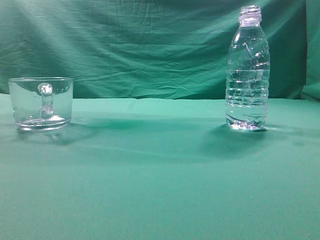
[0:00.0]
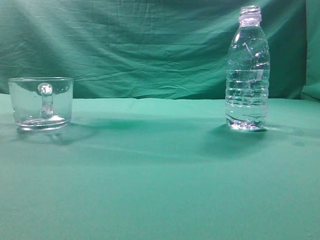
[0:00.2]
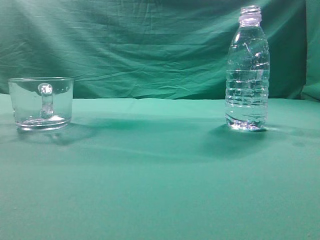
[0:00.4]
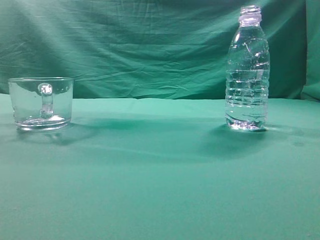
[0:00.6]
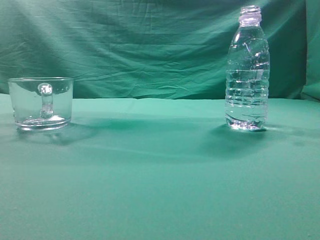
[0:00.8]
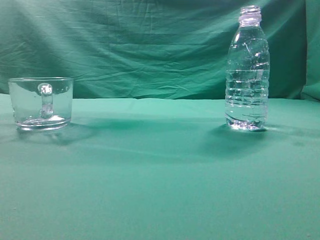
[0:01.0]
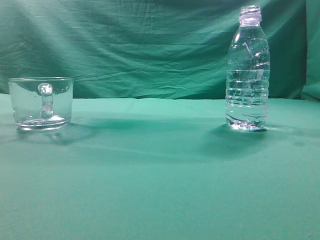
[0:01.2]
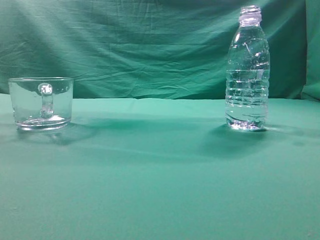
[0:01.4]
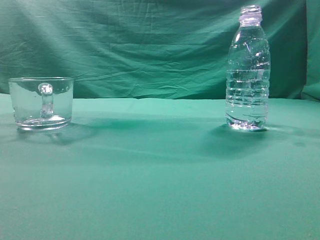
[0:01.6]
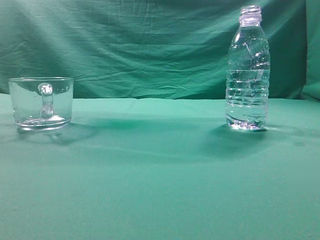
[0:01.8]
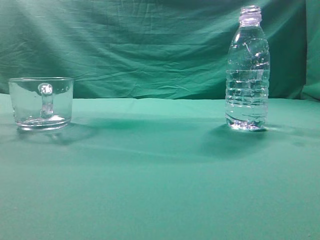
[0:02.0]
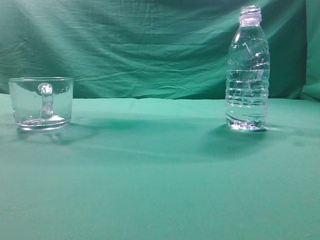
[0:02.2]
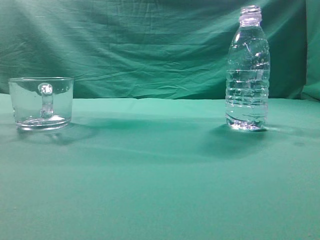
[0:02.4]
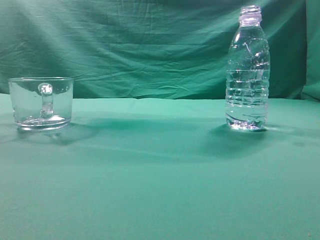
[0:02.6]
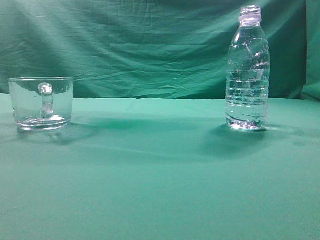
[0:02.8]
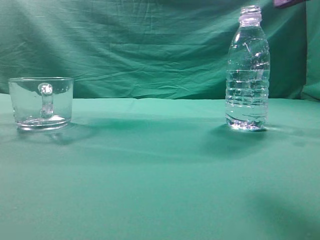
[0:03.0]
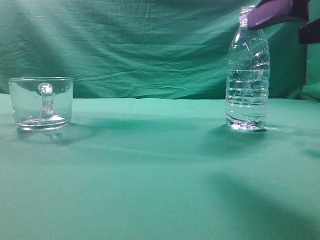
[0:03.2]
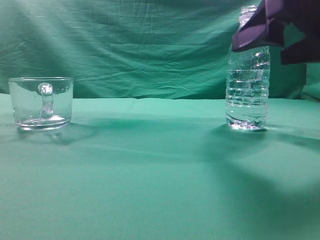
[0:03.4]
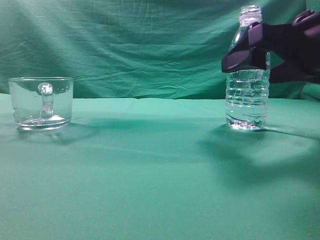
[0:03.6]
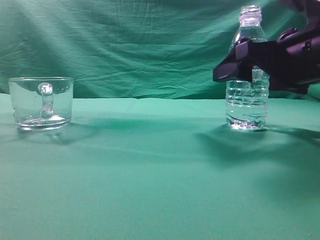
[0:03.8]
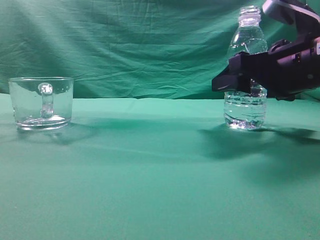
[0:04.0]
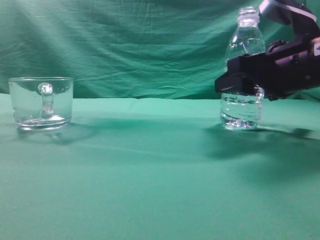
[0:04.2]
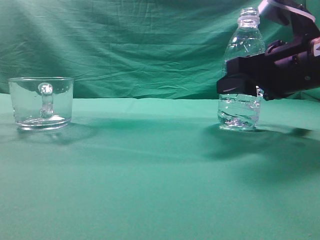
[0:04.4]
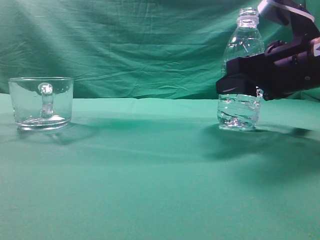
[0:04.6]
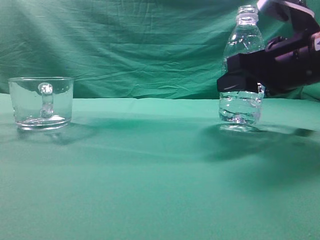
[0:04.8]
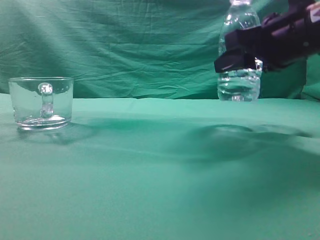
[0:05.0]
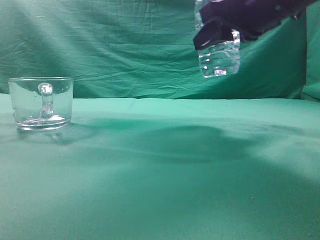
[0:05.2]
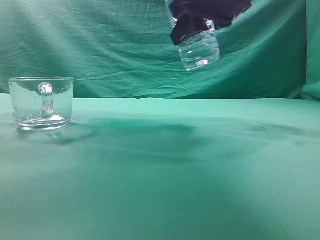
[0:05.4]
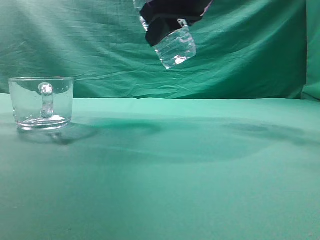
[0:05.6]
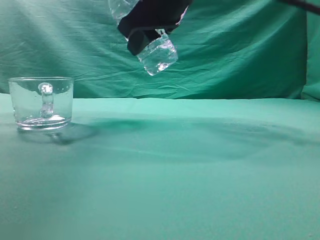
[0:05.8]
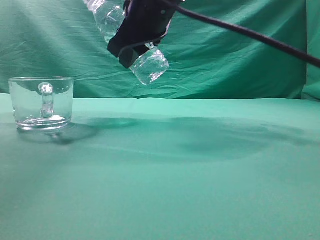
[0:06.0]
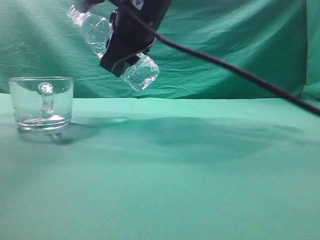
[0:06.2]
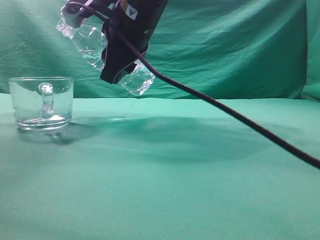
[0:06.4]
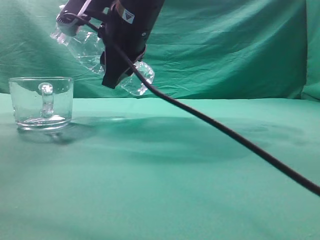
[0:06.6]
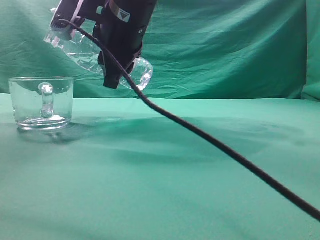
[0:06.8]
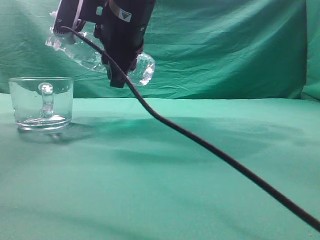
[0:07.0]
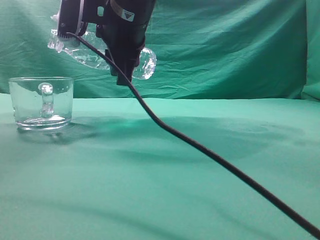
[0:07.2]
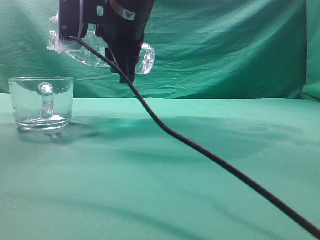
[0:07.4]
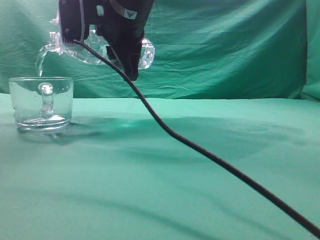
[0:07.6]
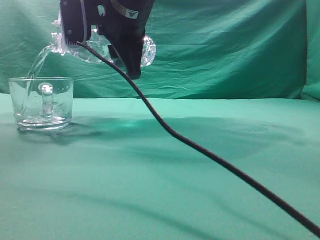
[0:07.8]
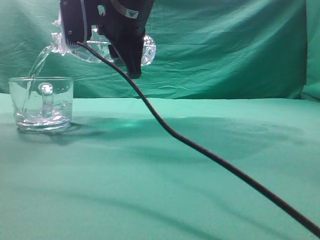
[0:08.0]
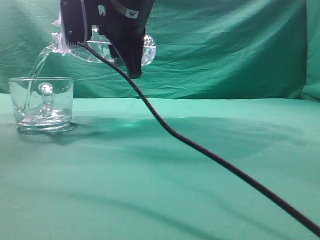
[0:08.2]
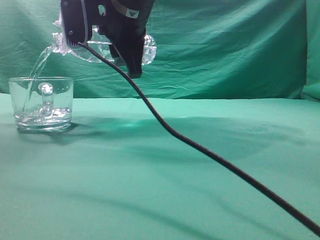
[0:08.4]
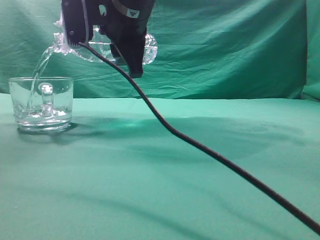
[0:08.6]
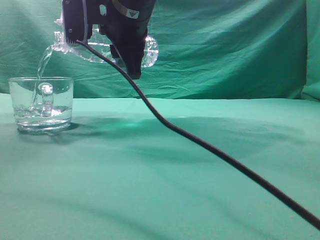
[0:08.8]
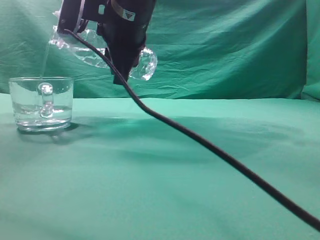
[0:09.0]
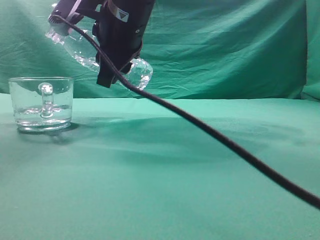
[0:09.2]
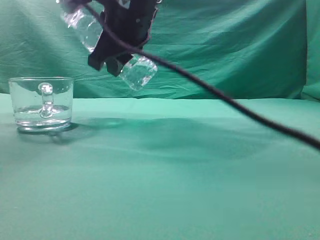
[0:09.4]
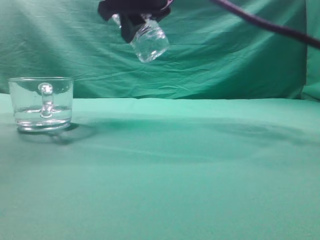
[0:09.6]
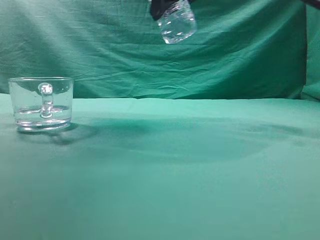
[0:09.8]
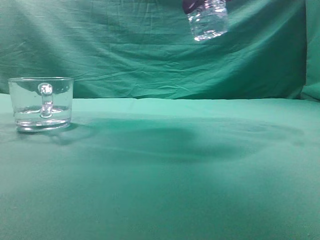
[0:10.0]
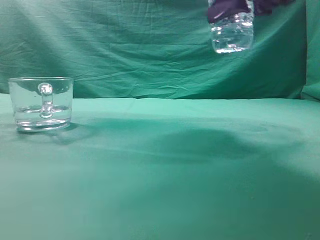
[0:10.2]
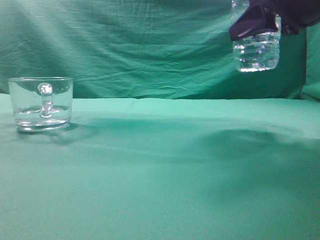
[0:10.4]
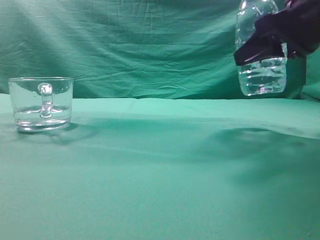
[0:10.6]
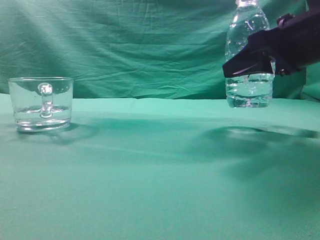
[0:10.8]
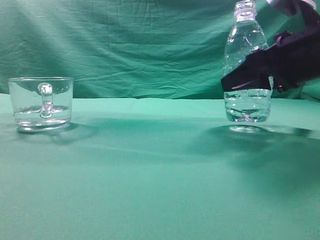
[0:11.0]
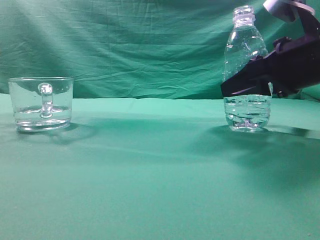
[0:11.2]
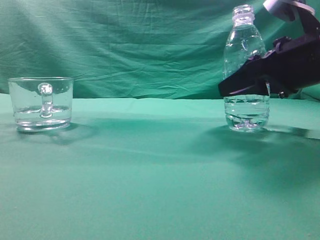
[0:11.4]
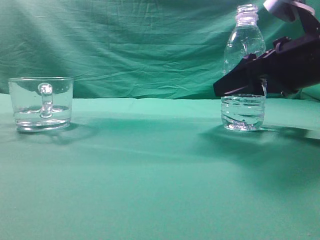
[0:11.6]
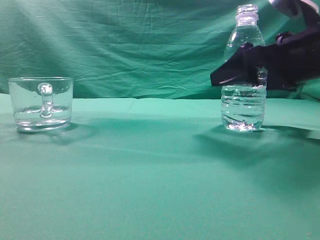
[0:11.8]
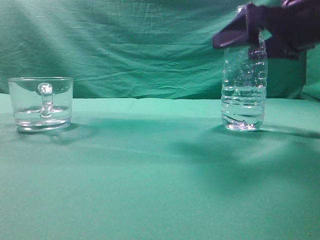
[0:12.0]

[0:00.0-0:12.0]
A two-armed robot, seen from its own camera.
Task of the whole recording: pick up the water bottle and pour the water in it into the glass.
Step, 0:00.0 to 0:05.0: Grasp the mineral water bottle.
Step, 0:05.2 to 0:09.4: Pour water into the teacup.
0:01.6 to 0:03.0: The right gripper travels forward and to the left by approximately 15 cm, and opens.
0:03.0 to 0:04.4: The right gripper shifts some 15 cm forward and downward, and closes its fingers.
0:04.4 to 0:06.0: The right gripper is displaced to the left and upward by some 20 cm.
0:07.6 to 0:09.0: The grippers make only small movements.
0:09.0 to 0:10.4: The right gripper heads to the right, covering about 25 cm.
0:10.4 to 0:12.0: The right gripper opens up.

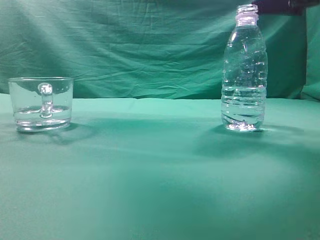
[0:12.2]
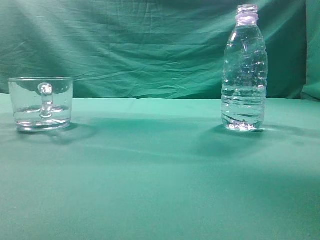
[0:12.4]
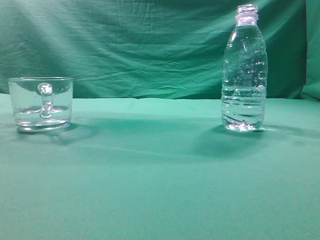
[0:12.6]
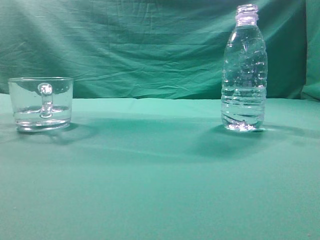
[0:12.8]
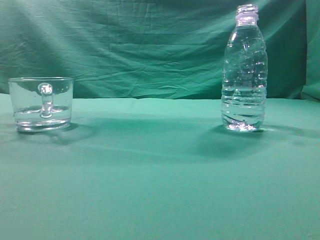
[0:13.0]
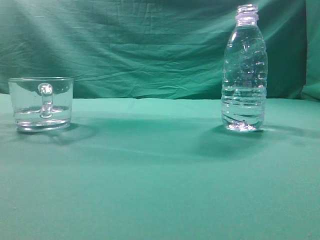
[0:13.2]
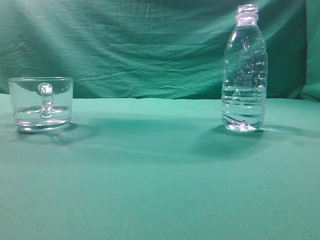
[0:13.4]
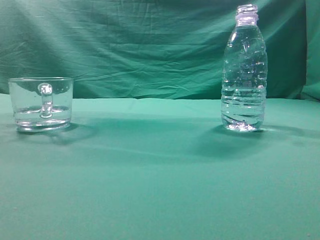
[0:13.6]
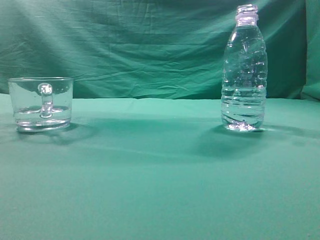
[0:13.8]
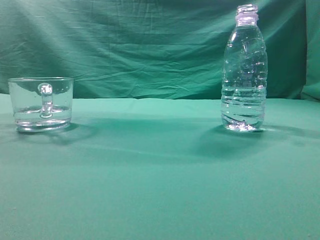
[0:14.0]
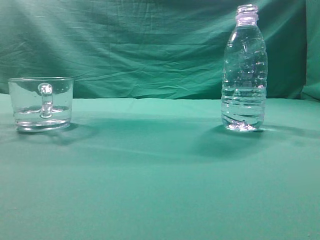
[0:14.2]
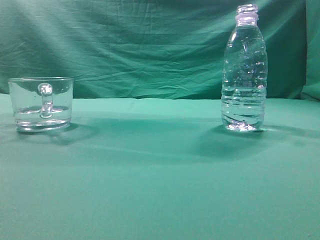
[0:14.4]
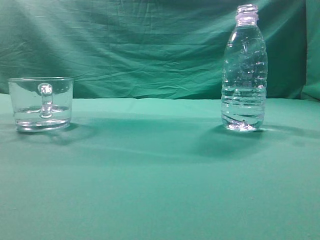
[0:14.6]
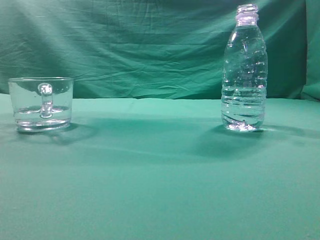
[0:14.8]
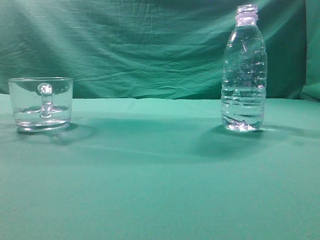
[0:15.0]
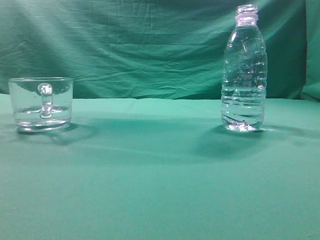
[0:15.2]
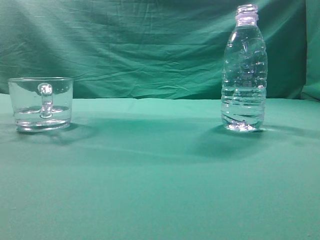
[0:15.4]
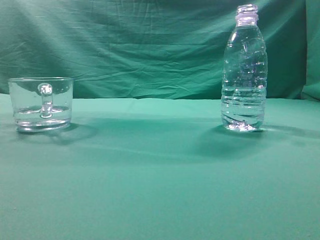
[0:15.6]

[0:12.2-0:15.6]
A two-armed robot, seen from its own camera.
Task of the whole recording: pick up the water bottle and pour the water in it into the glass.
0:12.2 to 0:13.8: The right gripper travels backward and upward by approximately 25 cm, and closes its fingers.
